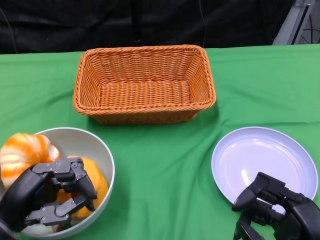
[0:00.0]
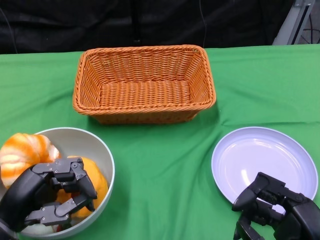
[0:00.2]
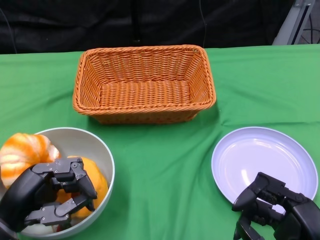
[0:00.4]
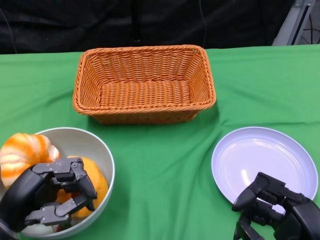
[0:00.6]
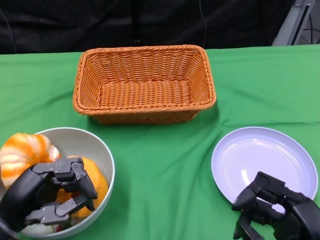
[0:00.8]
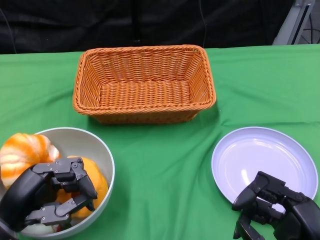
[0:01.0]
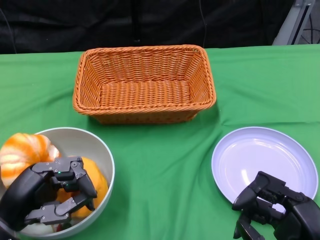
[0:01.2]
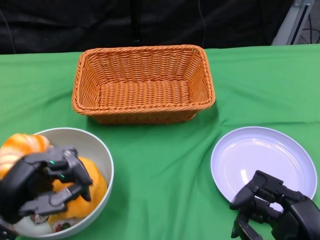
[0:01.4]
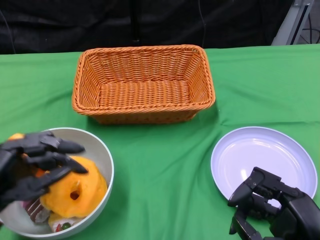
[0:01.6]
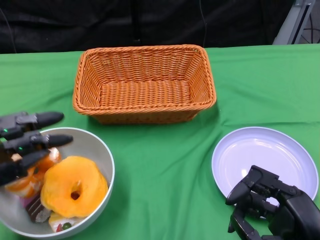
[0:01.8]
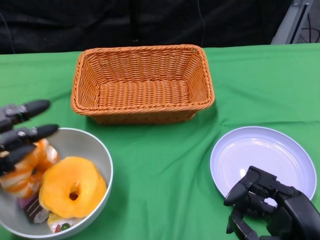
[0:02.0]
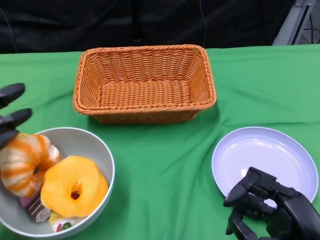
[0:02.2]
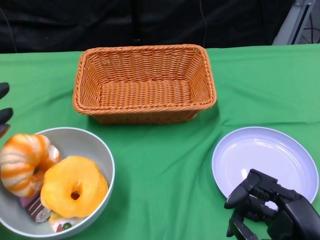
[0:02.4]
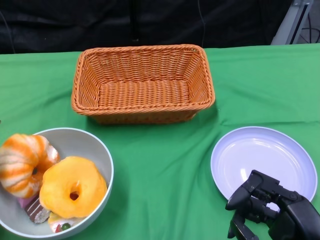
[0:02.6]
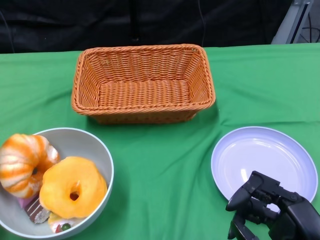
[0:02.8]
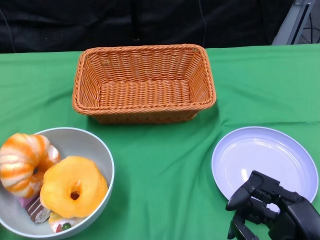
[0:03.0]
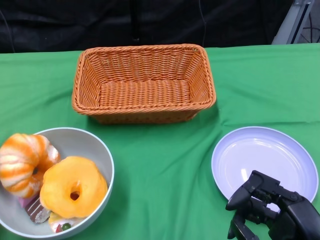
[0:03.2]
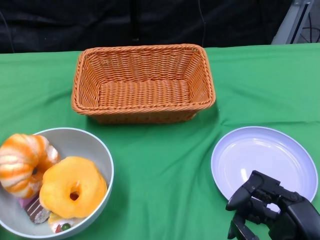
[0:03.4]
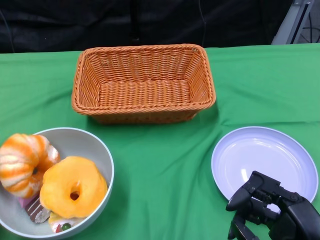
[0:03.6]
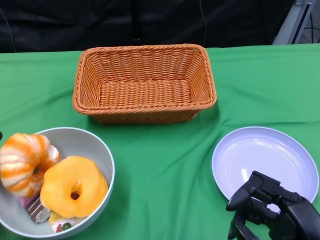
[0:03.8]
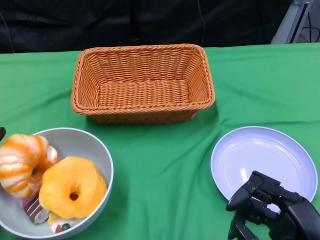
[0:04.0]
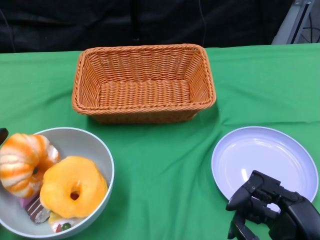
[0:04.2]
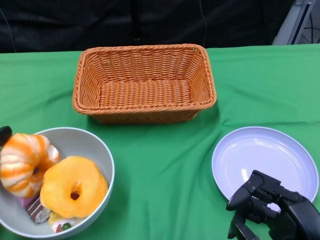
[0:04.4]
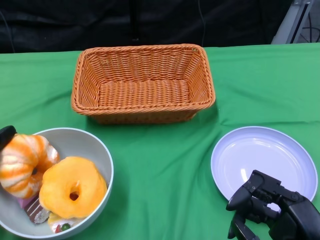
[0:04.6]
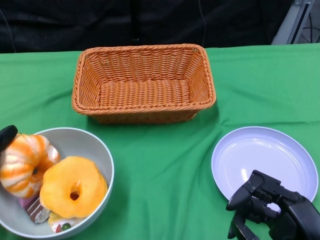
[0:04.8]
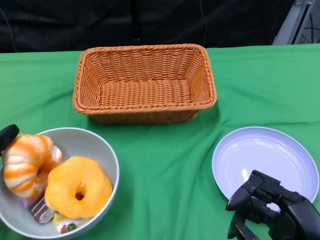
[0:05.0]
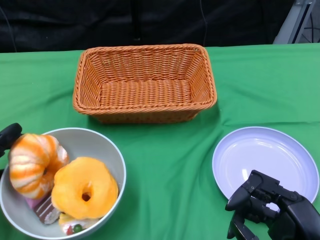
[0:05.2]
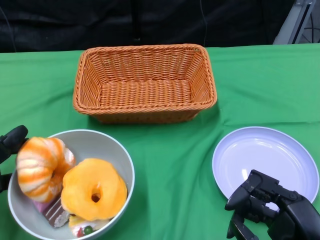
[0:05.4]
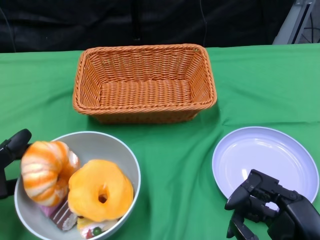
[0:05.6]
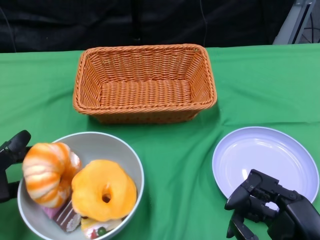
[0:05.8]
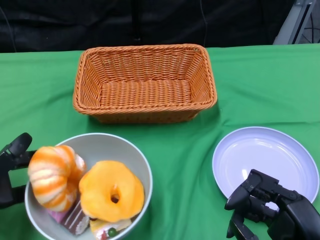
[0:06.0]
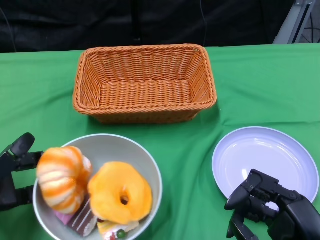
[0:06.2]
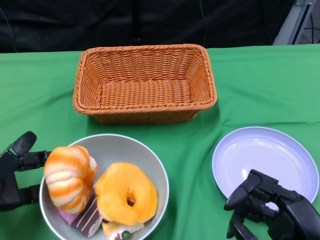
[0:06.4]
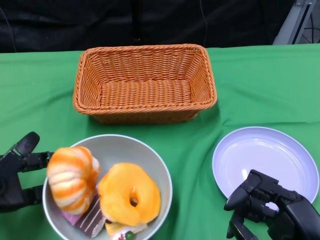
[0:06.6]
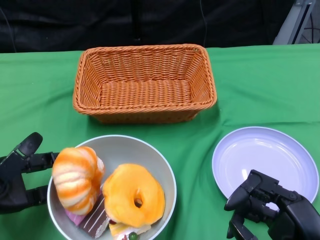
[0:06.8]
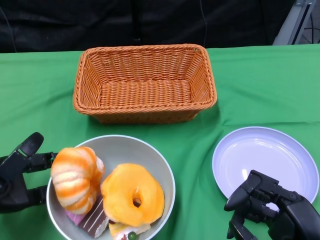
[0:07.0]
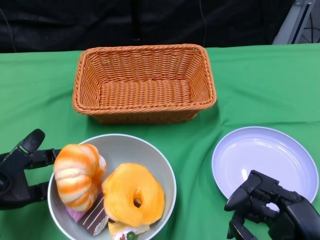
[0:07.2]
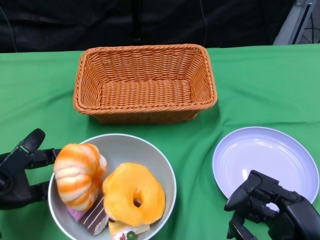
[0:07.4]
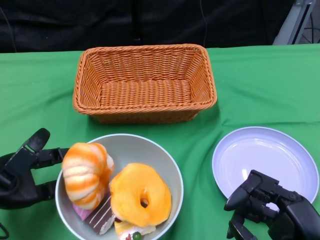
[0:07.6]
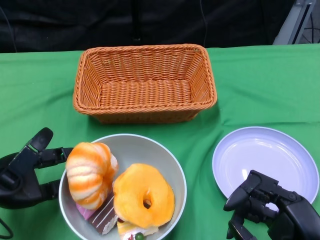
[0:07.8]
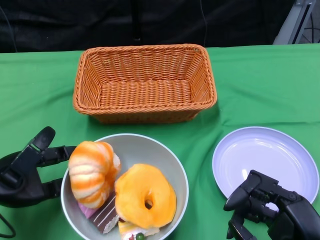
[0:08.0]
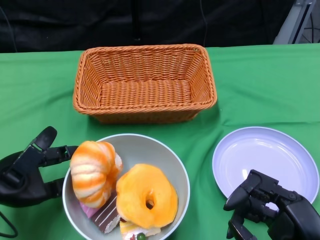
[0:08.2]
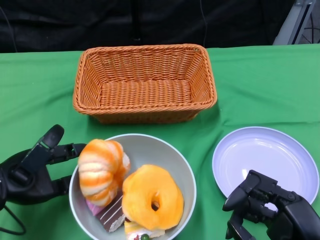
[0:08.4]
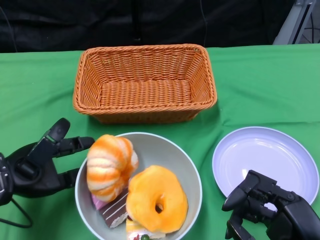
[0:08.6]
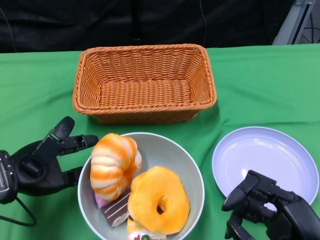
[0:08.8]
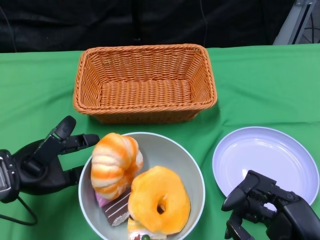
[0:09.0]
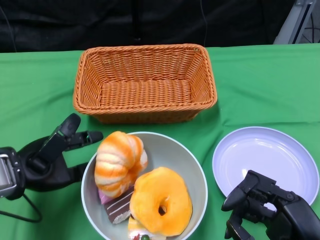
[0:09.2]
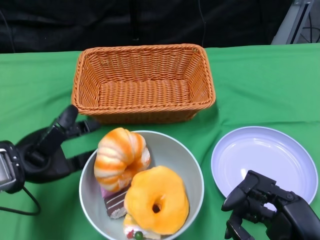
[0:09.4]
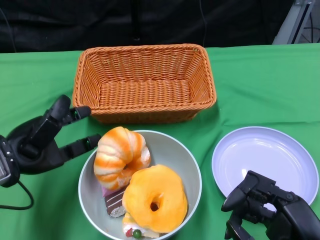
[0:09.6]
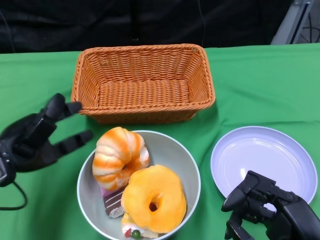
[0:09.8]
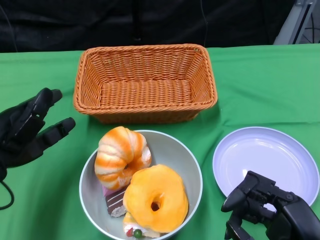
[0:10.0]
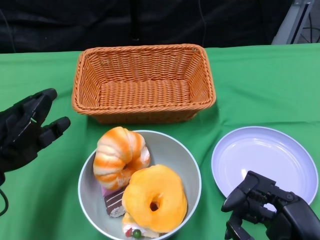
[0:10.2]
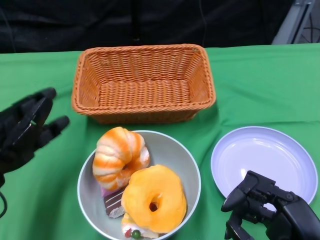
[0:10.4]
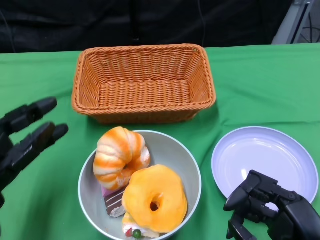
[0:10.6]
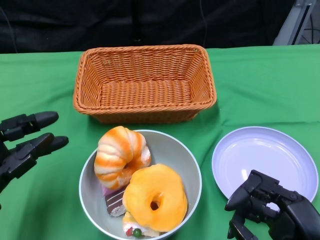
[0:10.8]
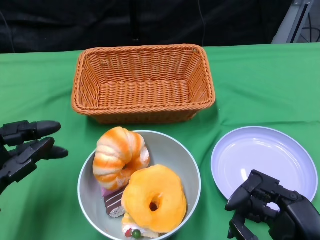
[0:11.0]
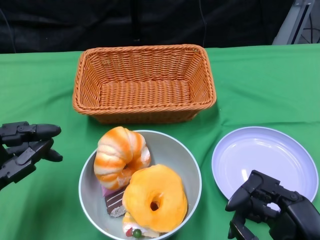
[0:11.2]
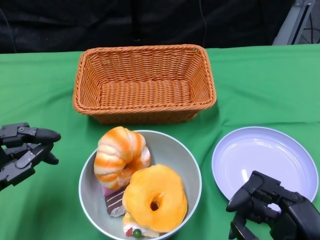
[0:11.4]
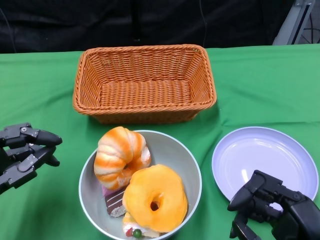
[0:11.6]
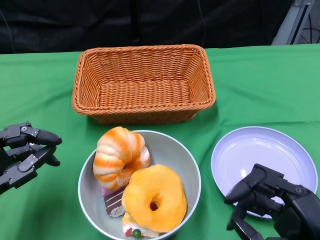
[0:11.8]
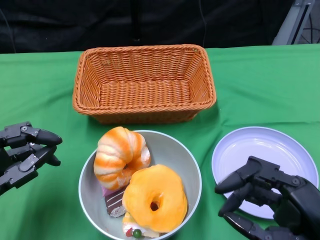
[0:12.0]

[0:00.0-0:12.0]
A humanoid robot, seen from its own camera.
Step, 0:00.0 to 0:10.6: Push the bowl to the center of the table using the left gripper.
0:01.6 to 0:03.0: The left hand is displaced to the left and forward by approximately 10 cm.
0:06.0 to 0:07.6: There are only small adjustments of the hands.
0:10.4 to 0:12.0: The left hand heads downward, covering some 5 cm.

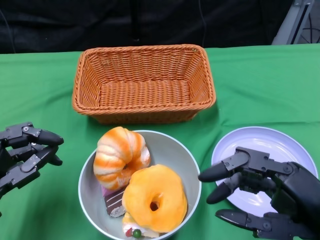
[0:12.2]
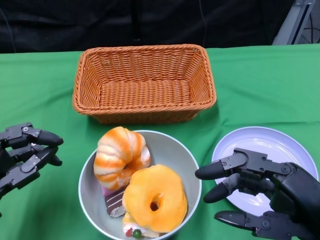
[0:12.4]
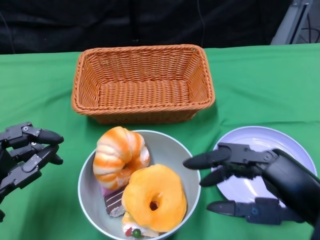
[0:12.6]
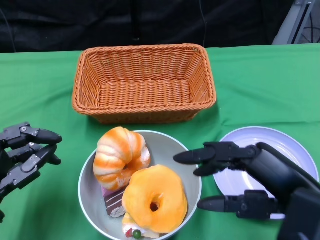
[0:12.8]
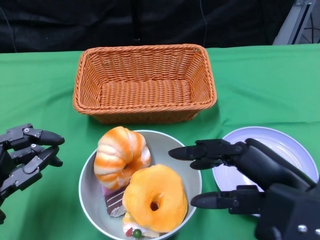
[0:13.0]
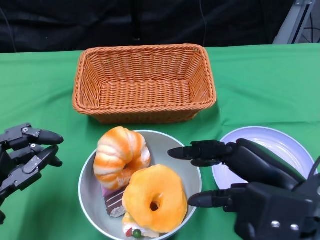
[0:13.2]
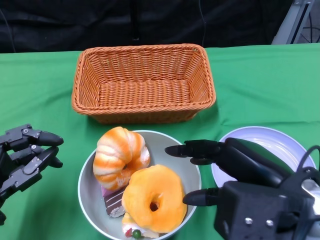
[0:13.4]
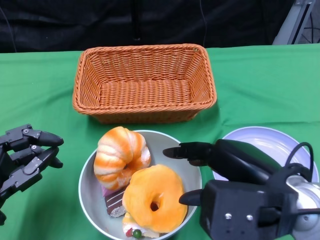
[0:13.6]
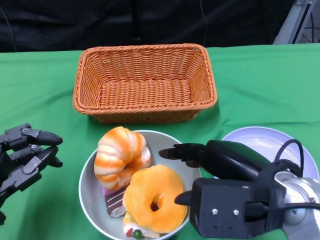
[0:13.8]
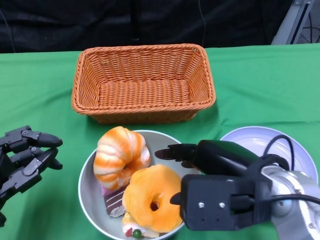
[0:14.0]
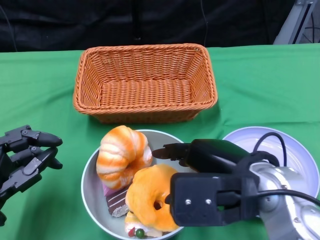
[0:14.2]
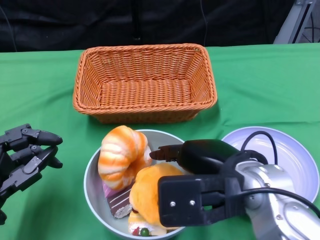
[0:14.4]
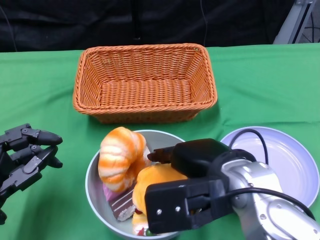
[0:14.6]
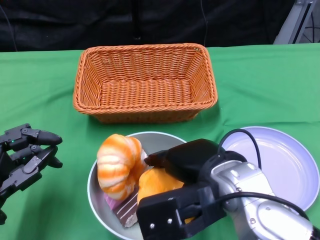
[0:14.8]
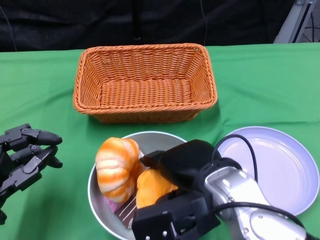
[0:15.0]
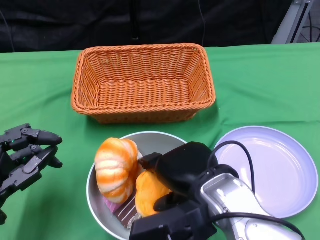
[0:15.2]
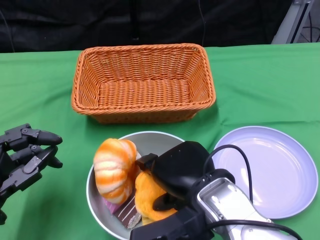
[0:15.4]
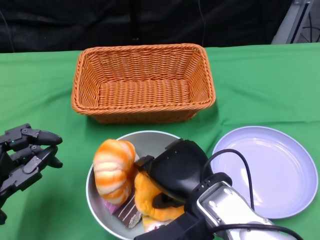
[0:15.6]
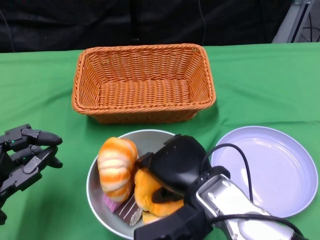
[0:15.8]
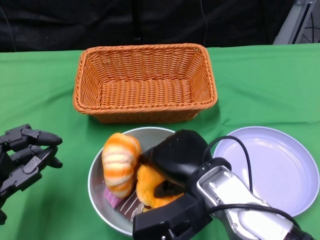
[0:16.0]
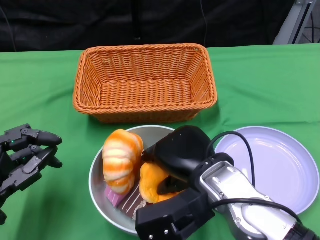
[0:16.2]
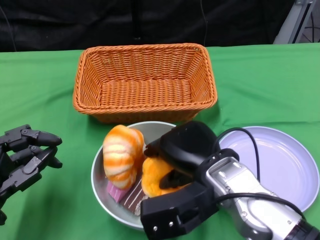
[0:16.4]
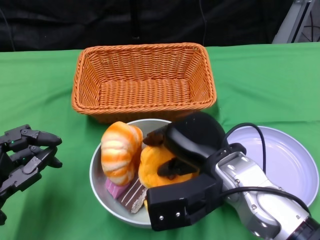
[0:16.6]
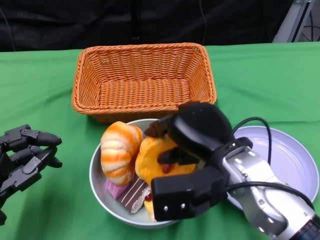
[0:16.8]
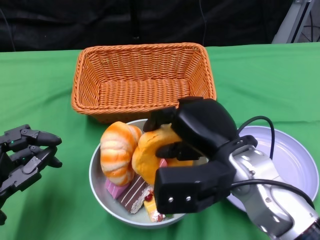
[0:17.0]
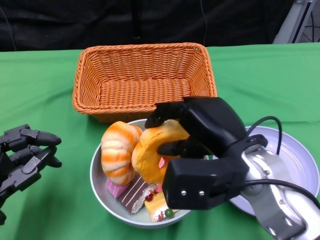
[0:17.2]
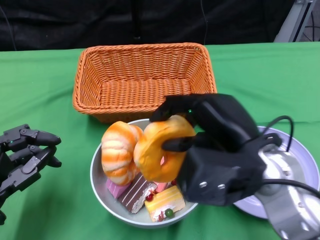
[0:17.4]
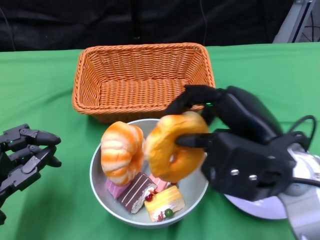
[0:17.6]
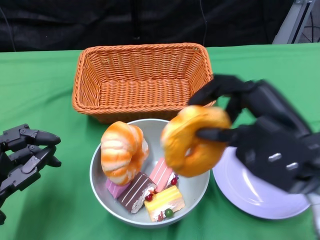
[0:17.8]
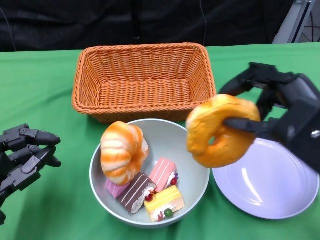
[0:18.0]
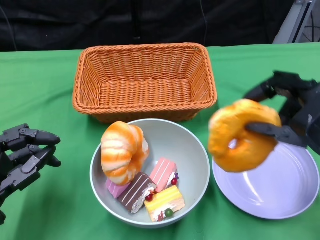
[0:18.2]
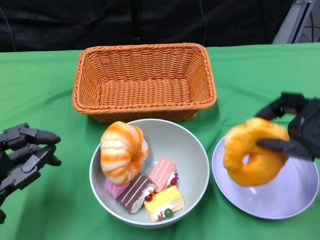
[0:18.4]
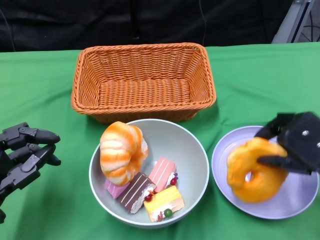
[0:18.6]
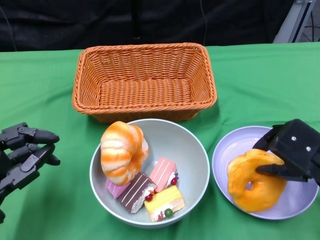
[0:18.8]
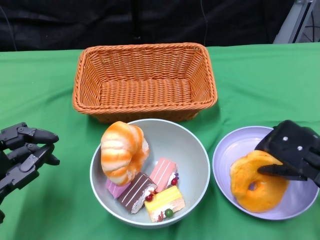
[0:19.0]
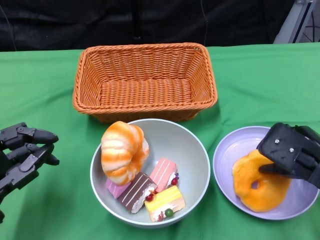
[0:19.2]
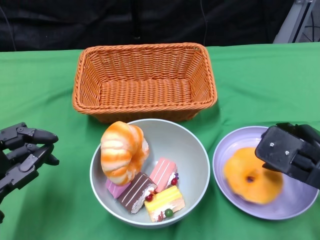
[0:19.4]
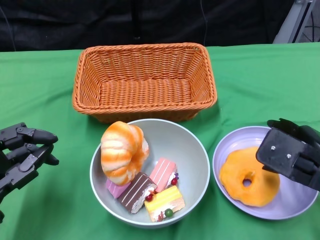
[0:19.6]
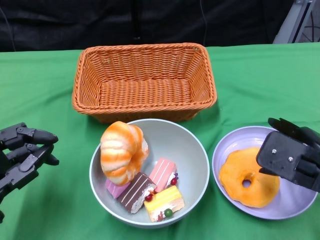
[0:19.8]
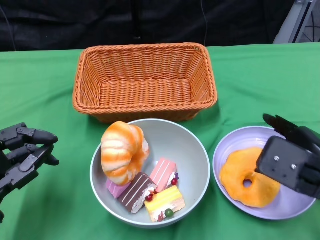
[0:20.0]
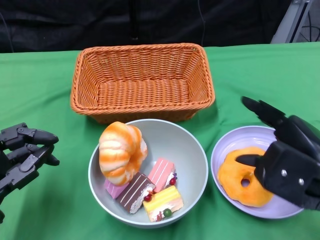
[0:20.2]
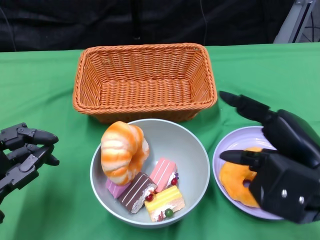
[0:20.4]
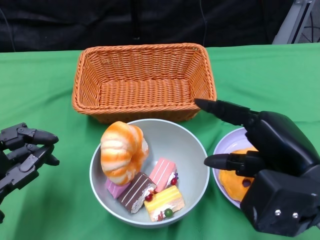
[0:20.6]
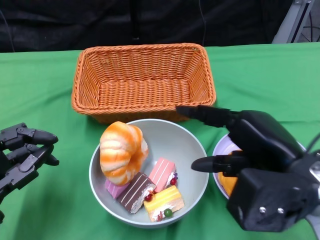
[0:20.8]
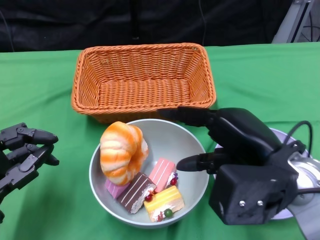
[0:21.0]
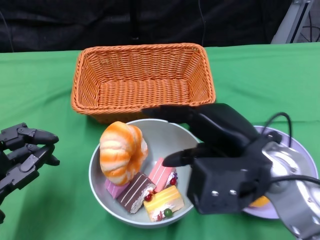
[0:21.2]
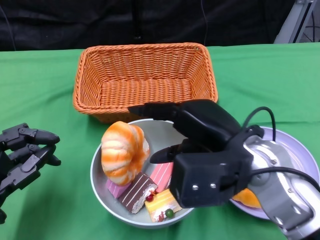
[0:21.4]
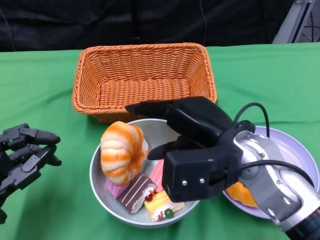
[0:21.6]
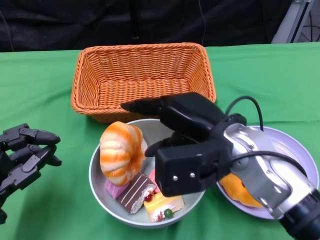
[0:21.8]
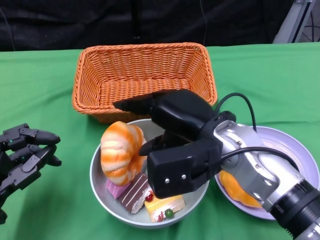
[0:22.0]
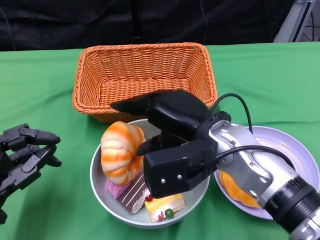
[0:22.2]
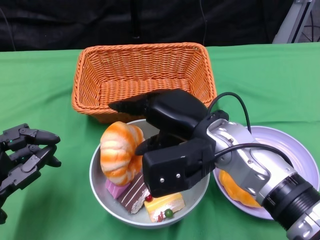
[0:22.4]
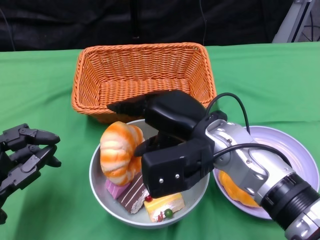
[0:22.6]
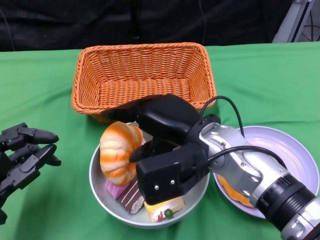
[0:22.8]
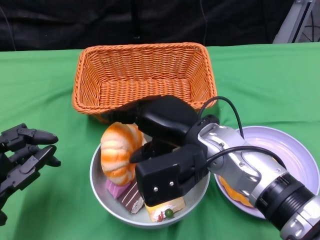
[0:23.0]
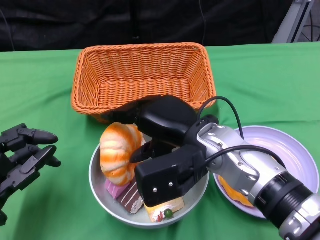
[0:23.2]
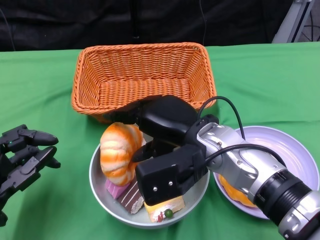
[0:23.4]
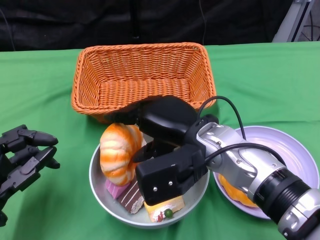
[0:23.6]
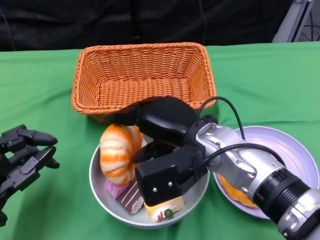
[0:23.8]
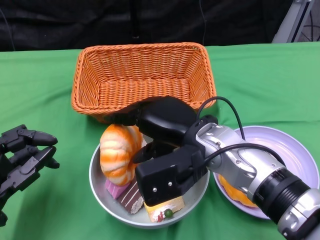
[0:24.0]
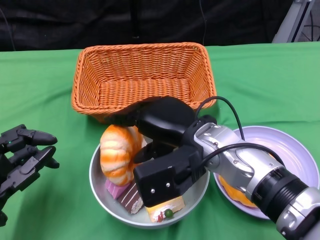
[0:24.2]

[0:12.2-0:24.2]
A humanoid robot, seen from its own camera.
0:12.2 to 0:13.8: The right hand shifts approximately 10 cm to the left and forward.
0:13.8 to 0:15.2: The right hand heads to the left, covering some 5 cm.
0:16.6 to 0:18.2: The right hand travels to the right and upward by about 15 cm.
0:18.2 to 0:19.8: The right hand travels downward by some 5 cm.
0:19.8 to 0:21.2: The right hand travels to the left by approximately 10 cm.
0:21.2 to 0:22.6: The right hand is displaced to the left by some 5 cm.
0:22.6 to 0:24.2: There are only small adjustments of the hands.
